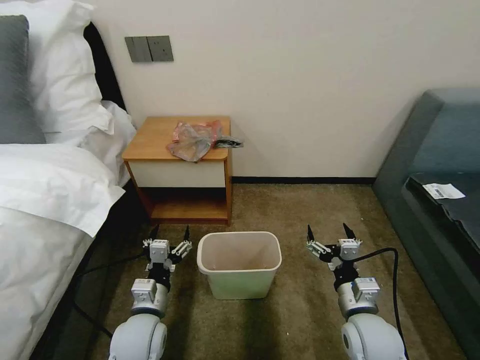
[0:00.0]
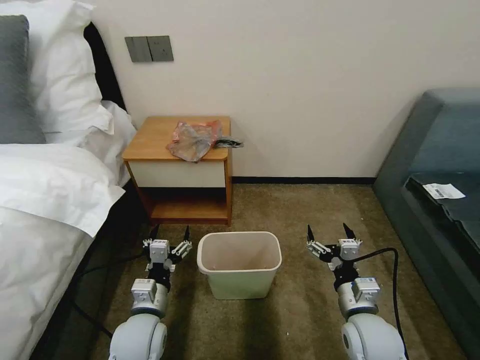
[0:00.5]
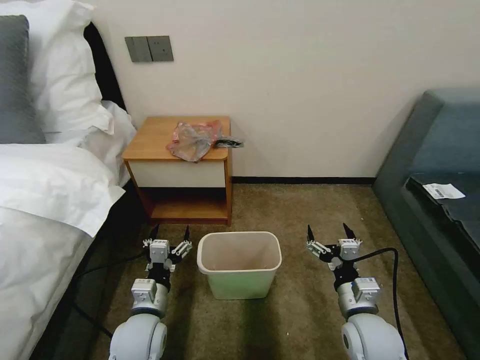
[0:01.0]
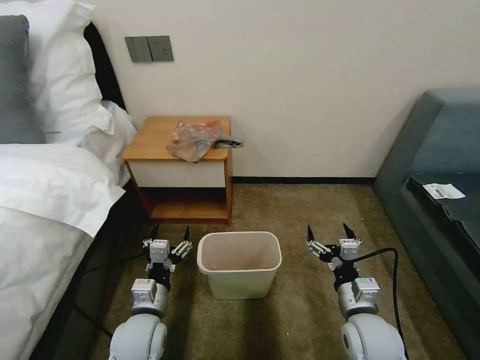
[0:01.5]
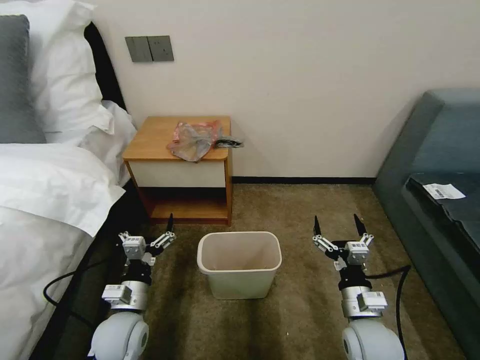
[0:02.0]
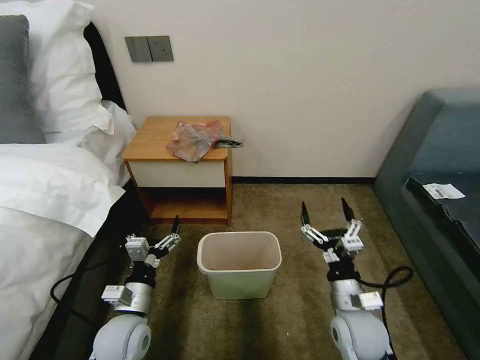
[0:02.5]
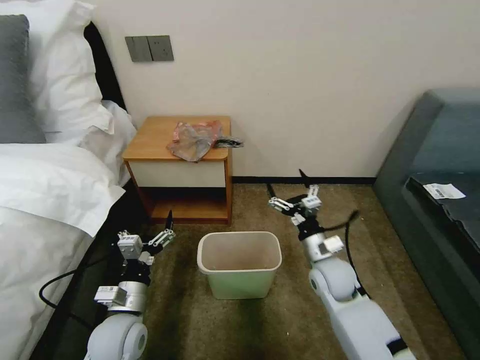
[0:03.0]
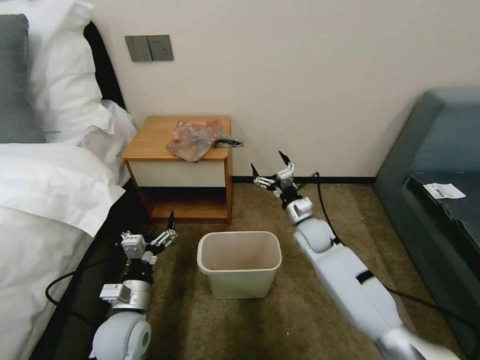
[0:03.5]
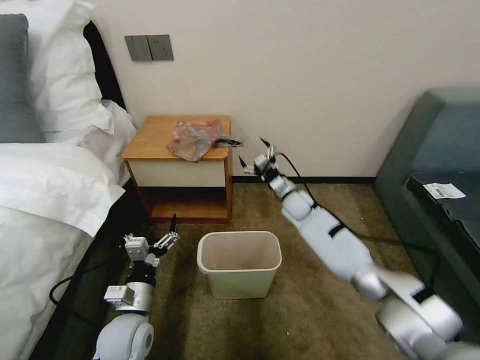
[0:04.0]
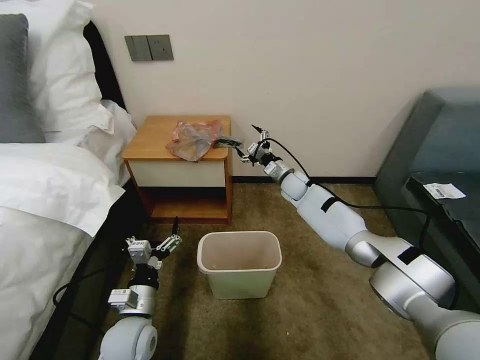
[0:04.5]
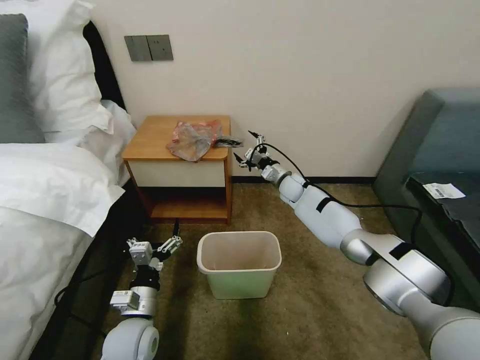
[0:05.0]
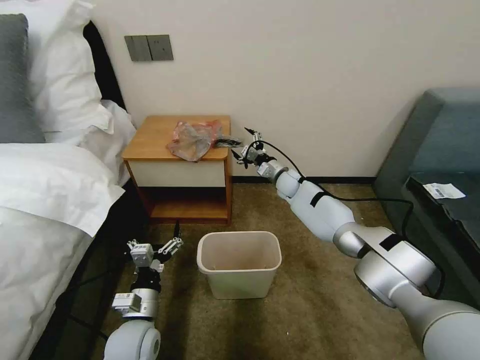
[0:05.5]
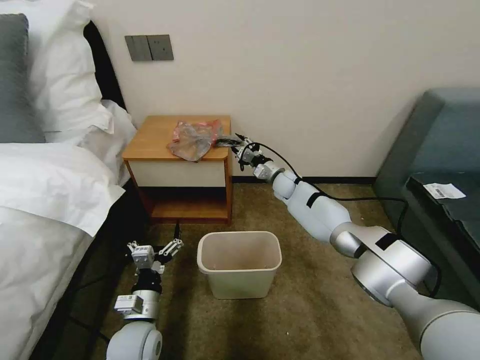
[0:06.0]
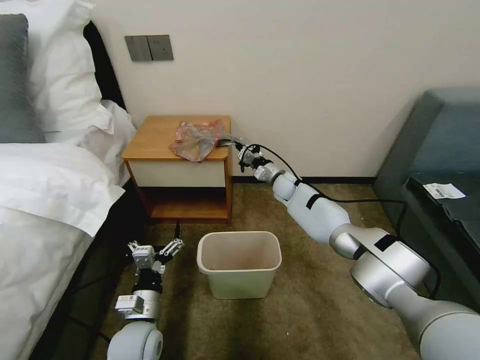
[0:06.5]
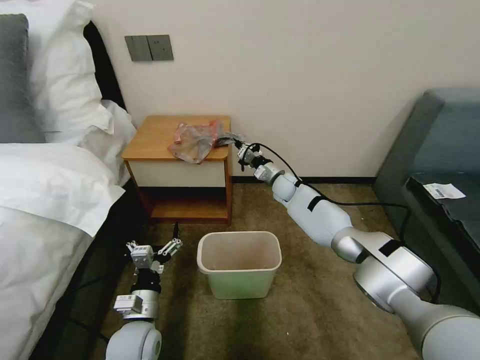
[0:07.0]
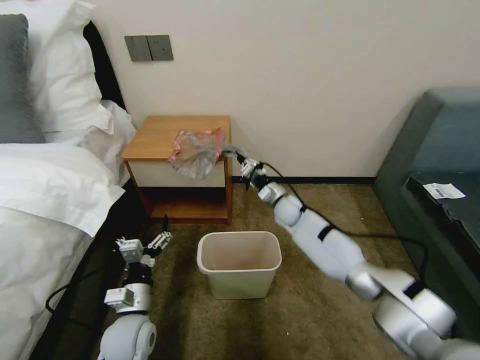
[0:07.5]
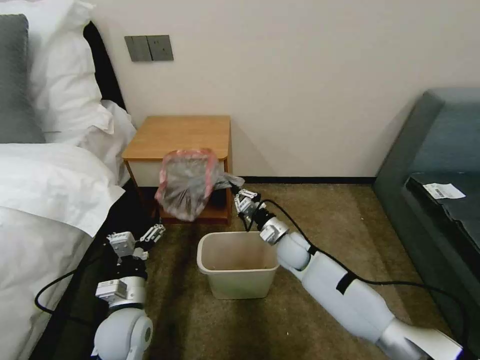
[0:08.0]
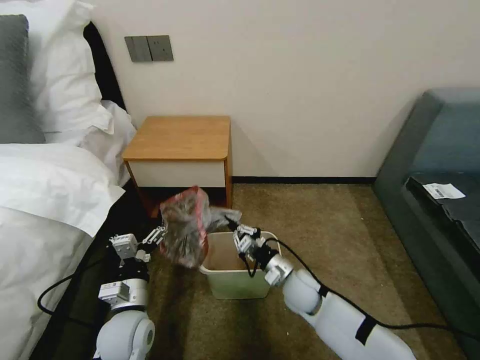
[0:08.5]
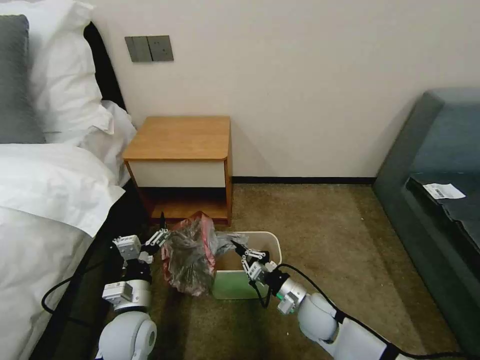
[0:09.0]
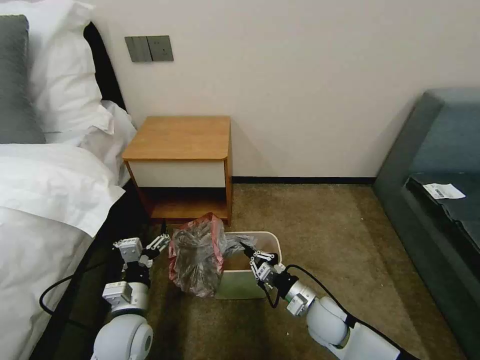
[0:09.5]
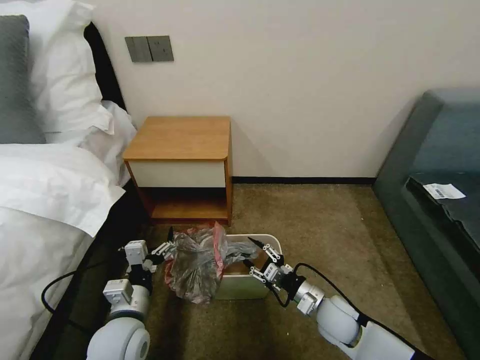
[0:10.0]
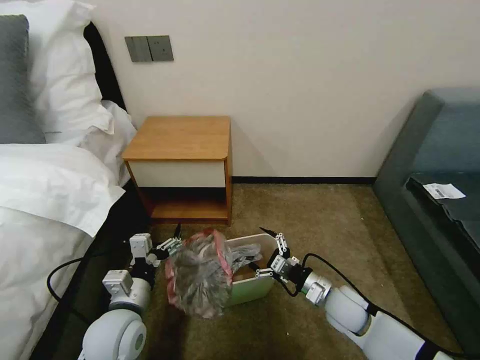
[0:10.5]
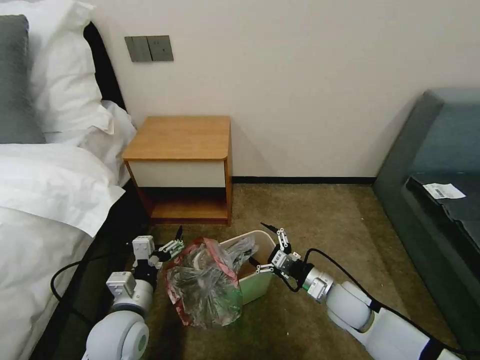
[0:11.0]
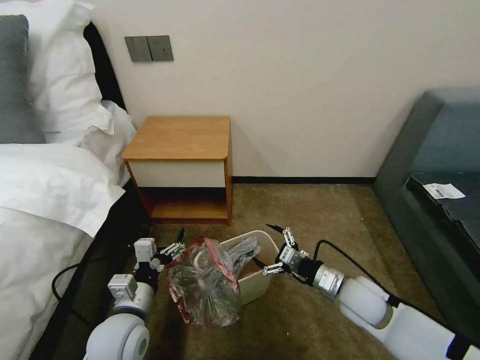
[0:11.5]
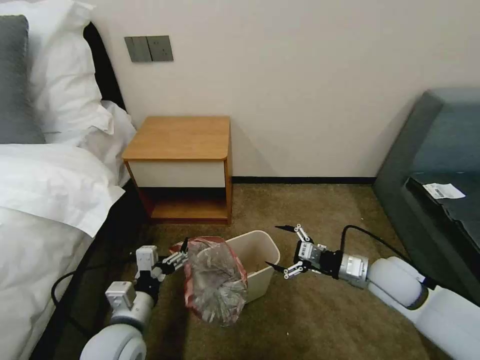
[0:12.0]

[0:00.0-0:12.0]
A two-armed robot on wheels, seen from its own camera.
Task of the whole recording: Pick up the garbage bag from the table and place it over the trash can.
0:02.0 to 0:04.0: The right gripper goes approximately 35 cm forward.
0:04.0 to 0:06.0: The right gripper moves forward, approximately 5 cm, and closes.
0:06.0 to 0:08.0: The right gripper goes roughly 20 cm backward, and closes.
0:08.0 to 0:10.0: The right gripper travels backward and to the right by approximately 20 cm, and opens.
0:10.0 to 0:12.0: The right gripper heads upward and to the right, covering some 15 cm, and opens its fingers.

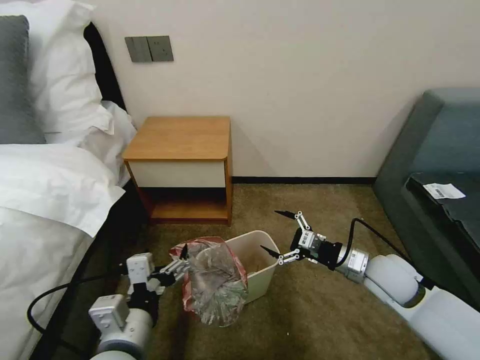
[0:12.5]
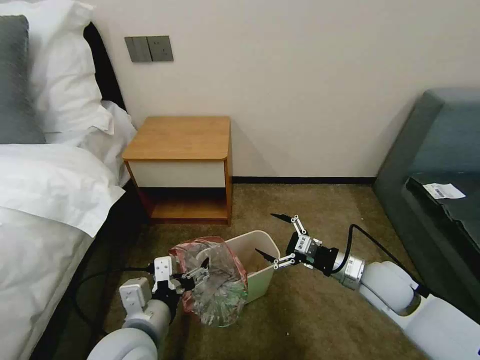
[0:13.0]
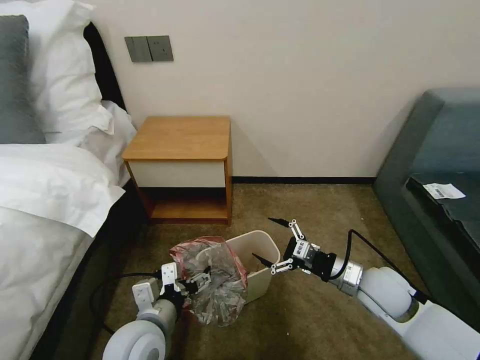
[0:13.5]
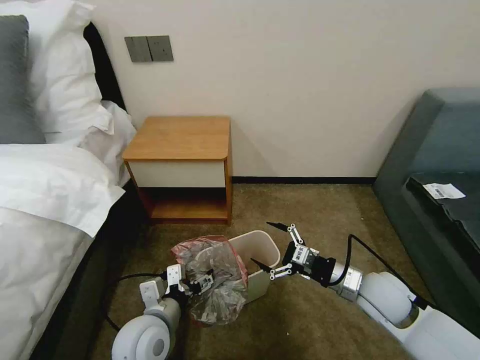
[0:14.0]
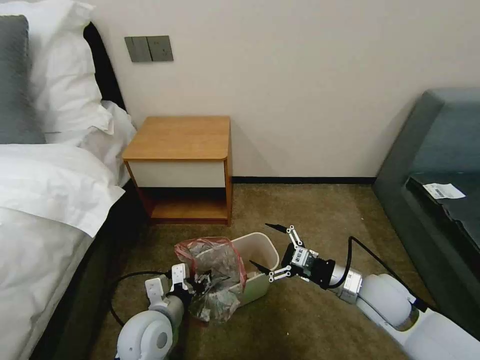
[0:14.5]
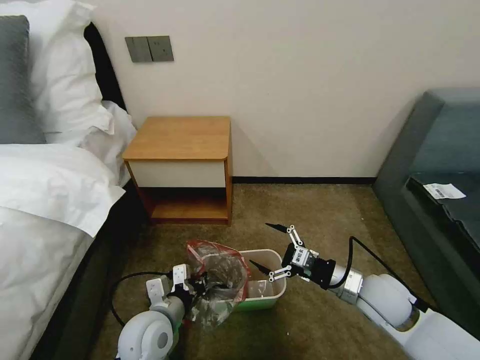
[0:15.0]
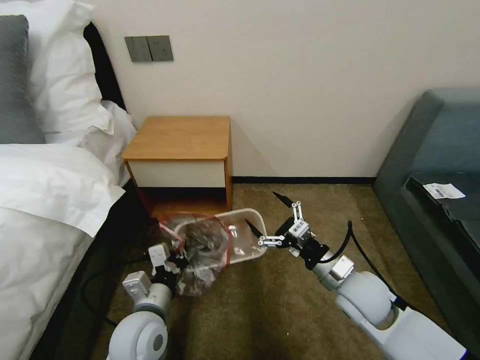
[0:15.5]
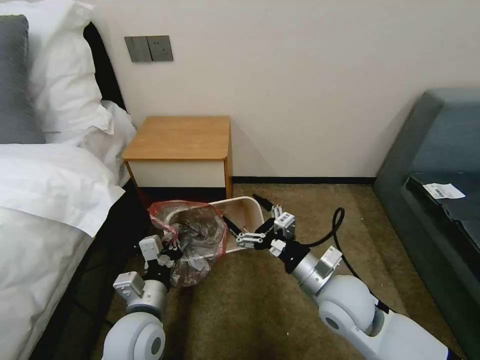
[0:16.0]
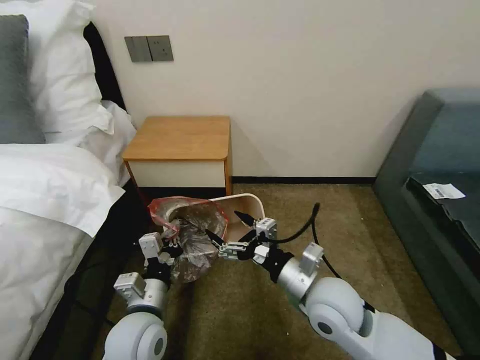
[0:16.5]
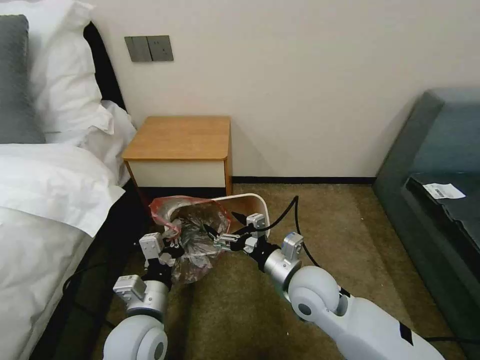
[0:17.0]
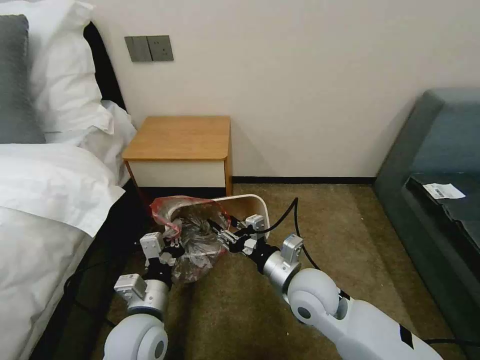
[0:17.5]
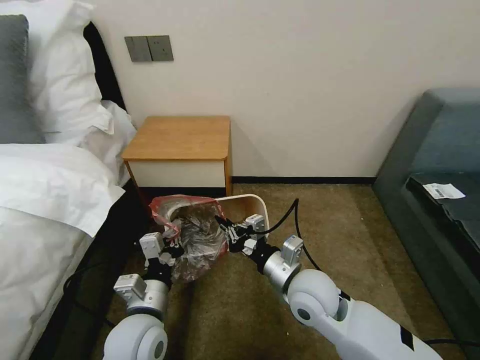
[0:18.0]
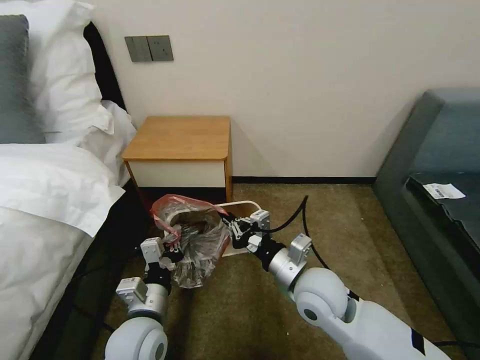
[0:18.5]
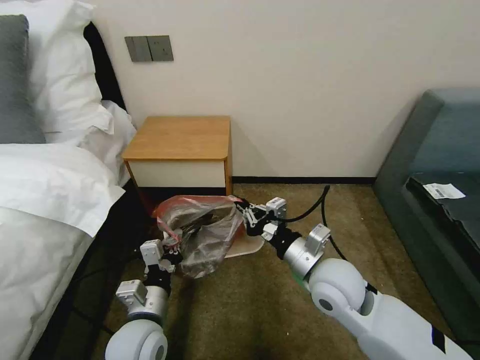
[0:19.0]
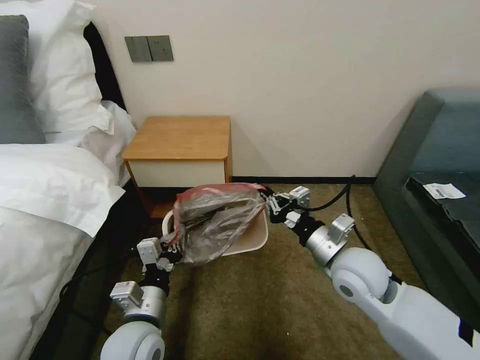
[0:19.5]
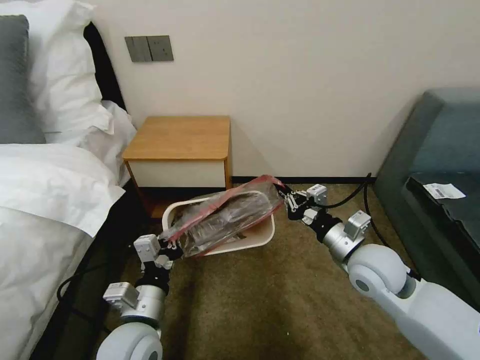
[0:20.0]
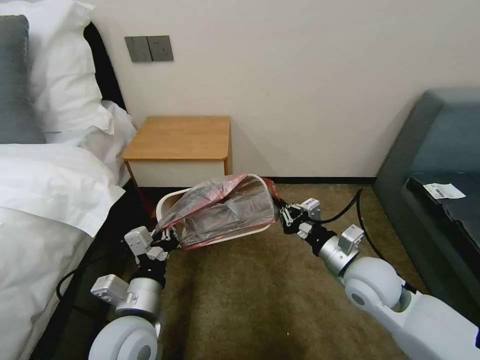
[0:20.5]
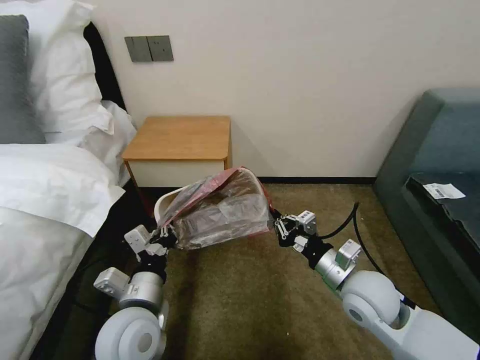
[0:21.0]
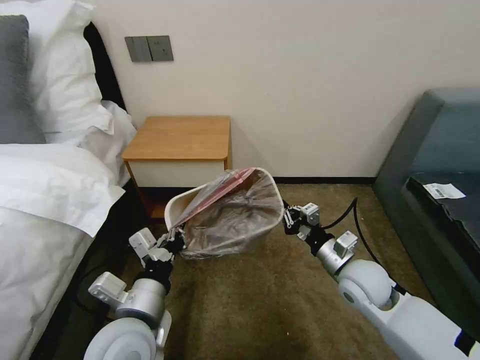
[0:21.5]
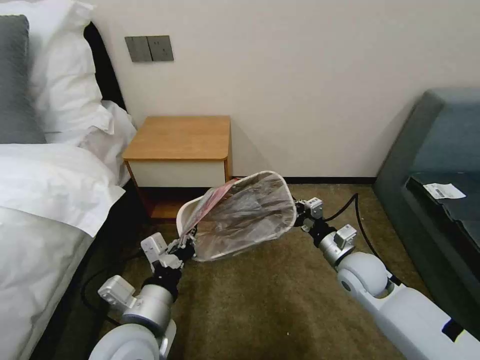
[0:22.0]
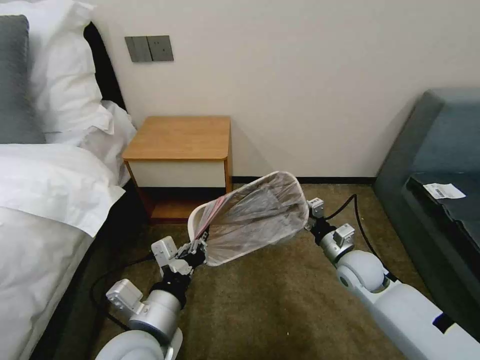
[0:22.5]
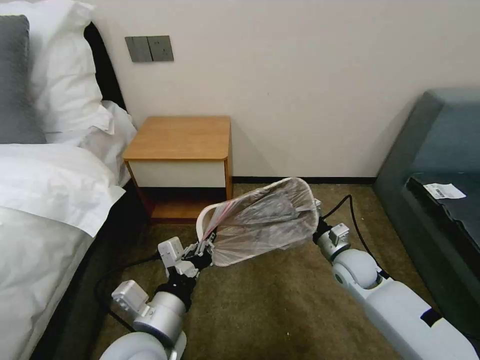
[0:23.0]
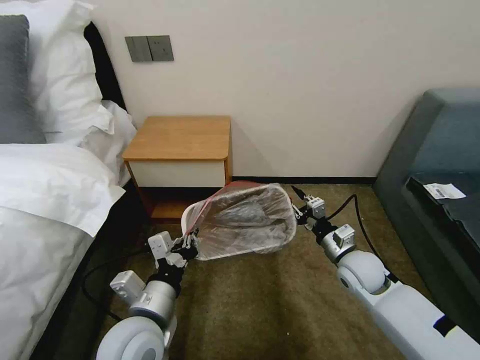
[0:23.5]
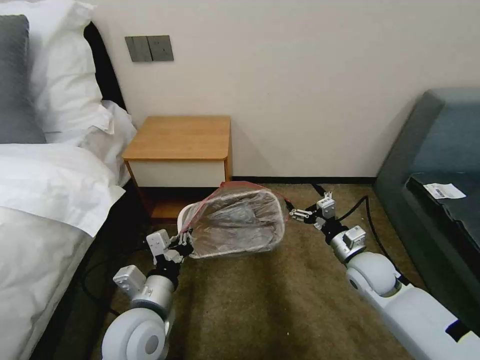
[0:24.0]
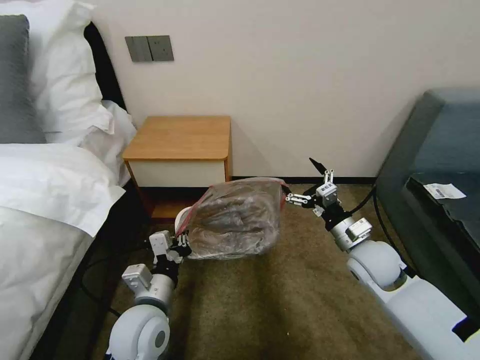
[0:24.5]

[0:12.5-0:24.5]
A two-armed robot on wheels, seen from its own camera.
Task of the whole recording: Pick up the garbage bag from the table and place it over the trash can.
0:12.5 to 0:14.5: The left gripper heads downward and forward, covering about 15 cm, and closes.
0:14.5 to 0:16.5: The left gripper closes up, while the right gripper travels to the left and upward by approximately 15 cm.
0:16.5 to 0:18.5: The right gripper closes.
0:18.5 to 0:20.5: The left gripper goes about 5 cm upward, while the right gripper heads to the right, covering roughly 10 cm.
0:20.5 to 0:22.5: The right gripper travels downward and forward by about 10 cm.
0:22.5 to 0:24.5: The left gripper travels downward and forward by roughly 10 cm, while the right gripper goes some 5 cm upward, and opens up.

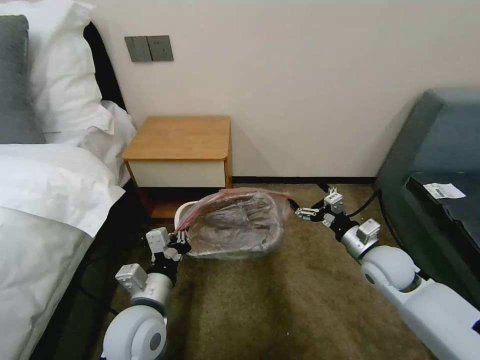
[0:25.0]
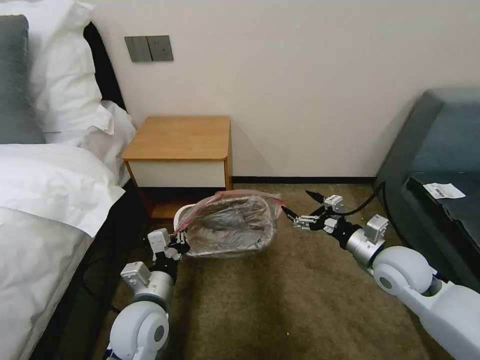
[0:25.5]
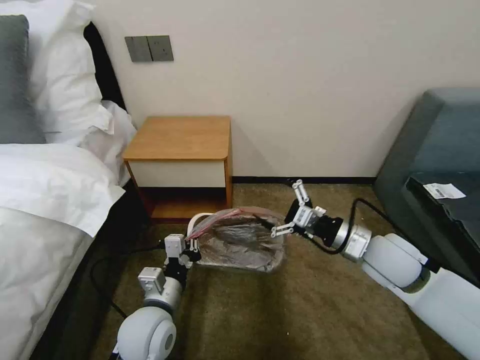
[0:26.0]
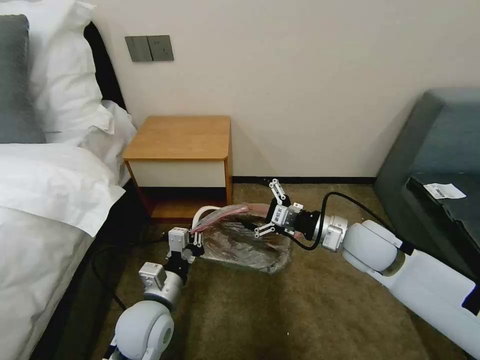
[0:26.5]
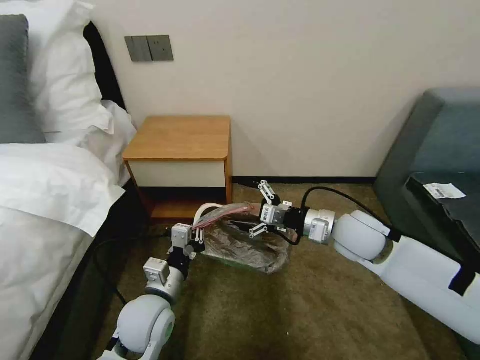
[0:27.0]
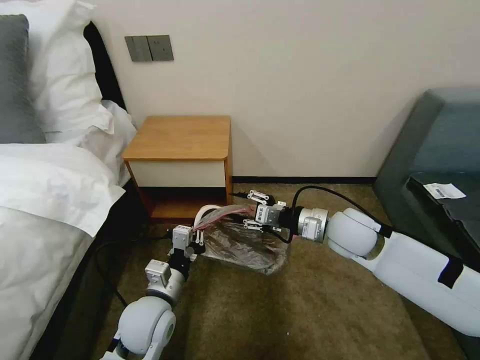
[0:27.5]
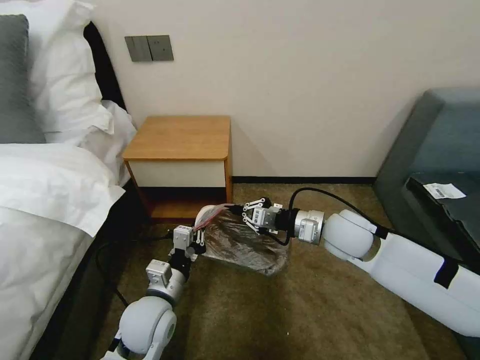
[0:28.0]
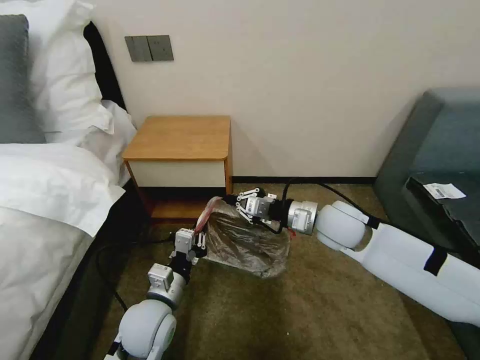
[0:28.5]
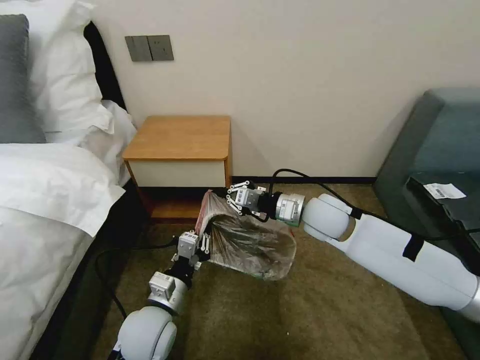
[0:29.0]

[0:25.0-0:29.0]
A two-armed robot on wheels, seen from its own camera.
Task of the whole recording: Pick up the garbage bag from the table and place it over the trash can.
0:25.0 to 0:27.0: The right gripper moves upward and to the left, roughly 15 cm.
0:27.0 to 0:29.0: The right gripper travels to the left by some 5 cm, and closes.
